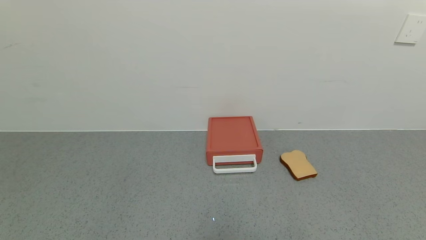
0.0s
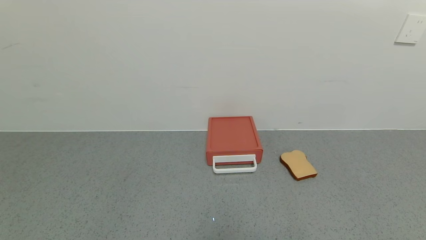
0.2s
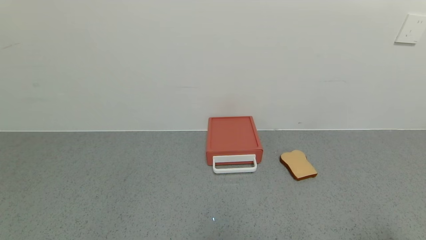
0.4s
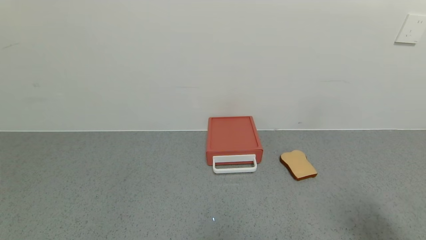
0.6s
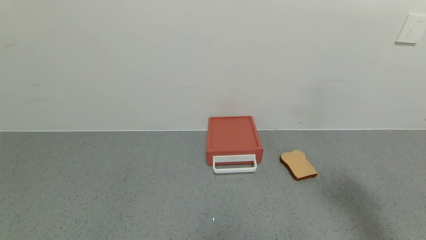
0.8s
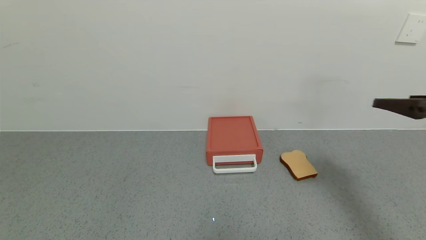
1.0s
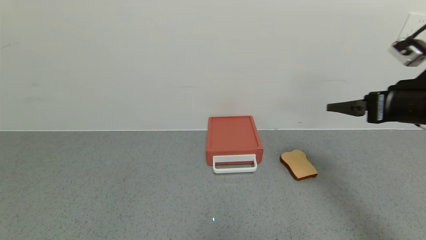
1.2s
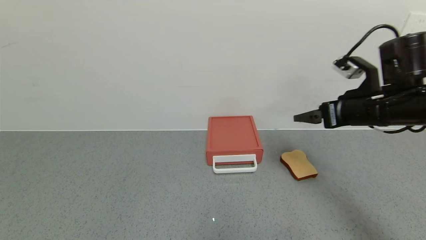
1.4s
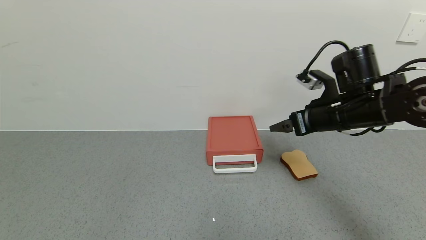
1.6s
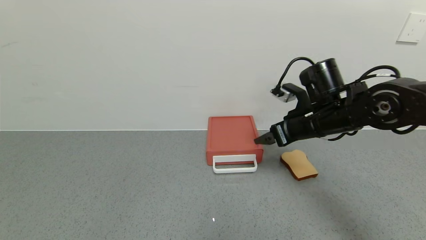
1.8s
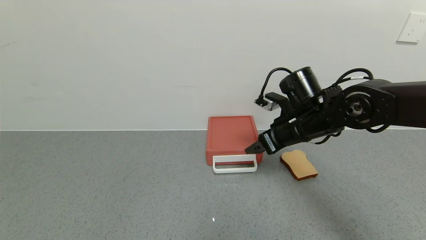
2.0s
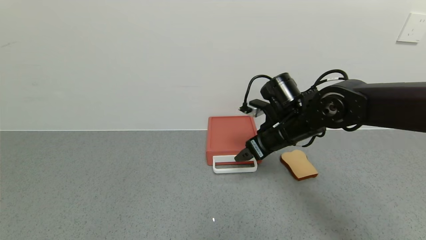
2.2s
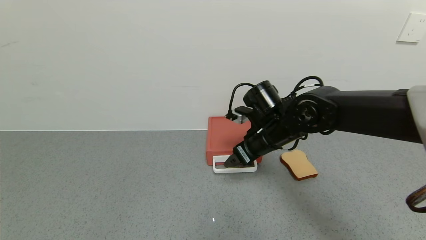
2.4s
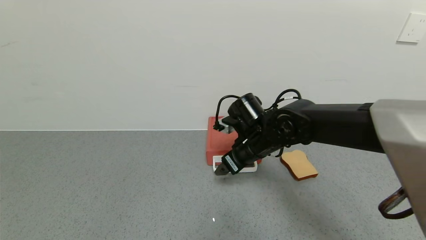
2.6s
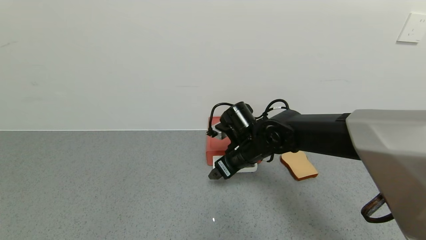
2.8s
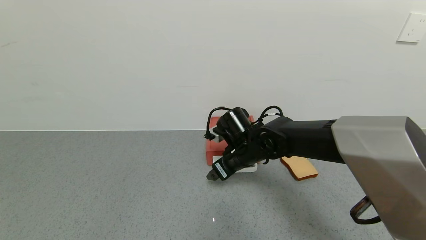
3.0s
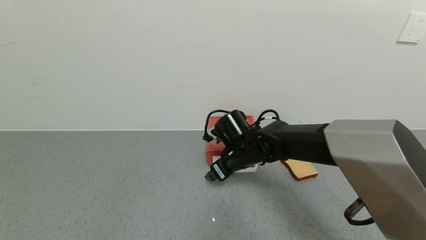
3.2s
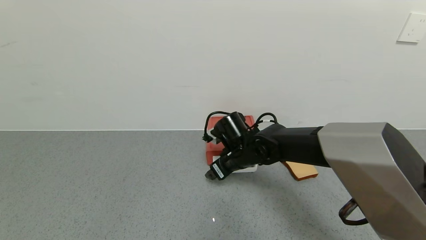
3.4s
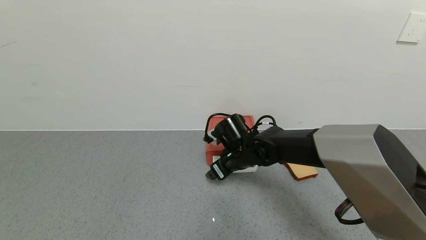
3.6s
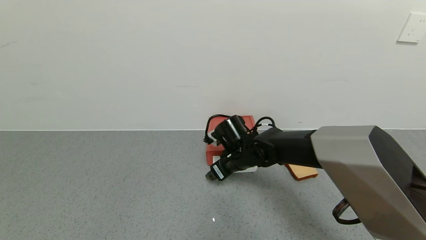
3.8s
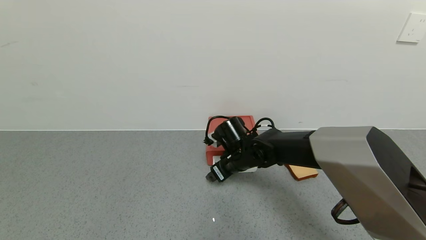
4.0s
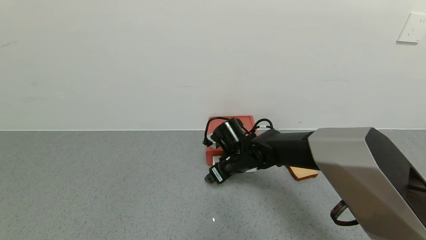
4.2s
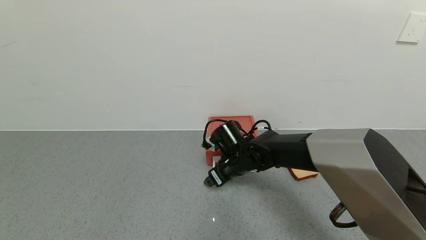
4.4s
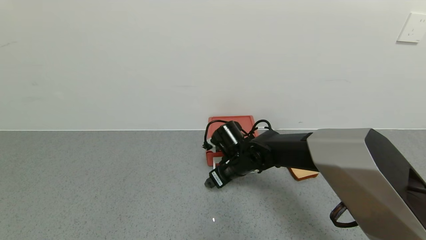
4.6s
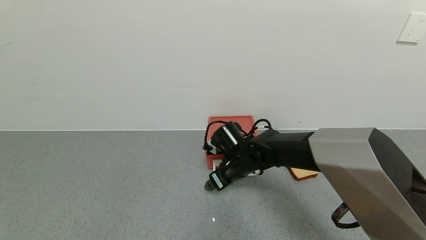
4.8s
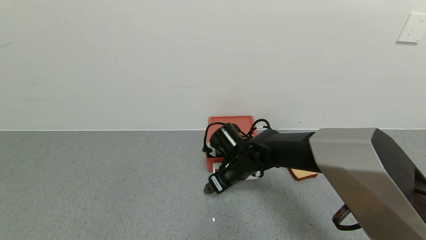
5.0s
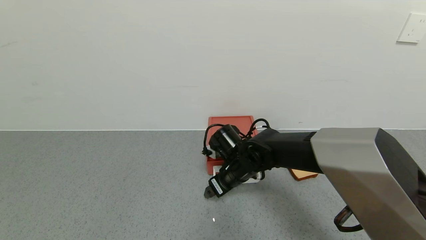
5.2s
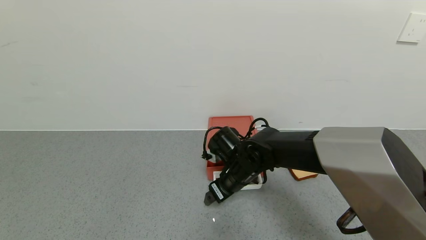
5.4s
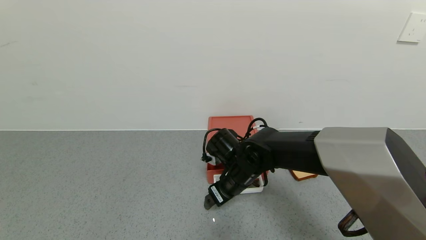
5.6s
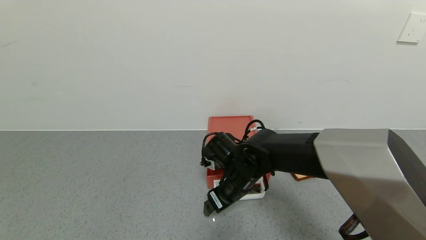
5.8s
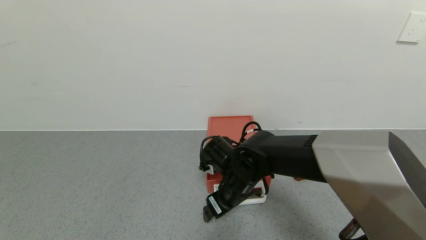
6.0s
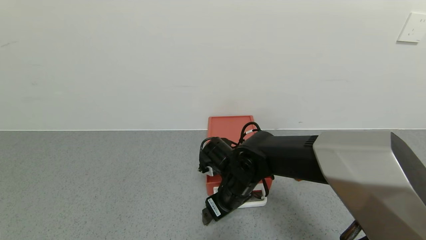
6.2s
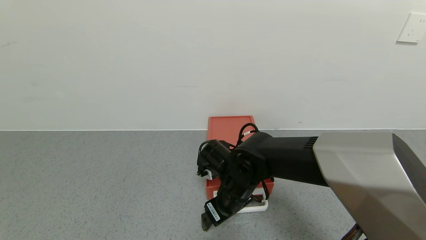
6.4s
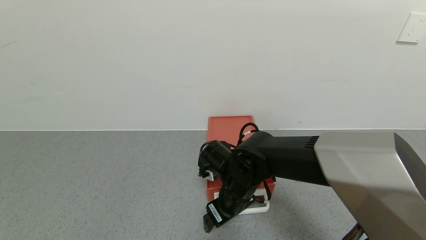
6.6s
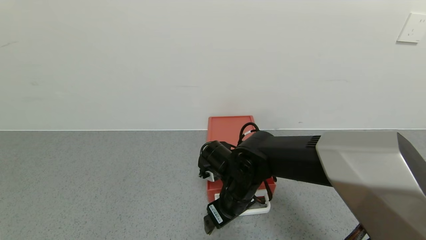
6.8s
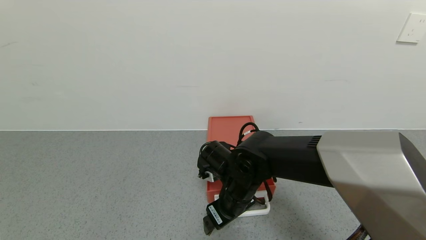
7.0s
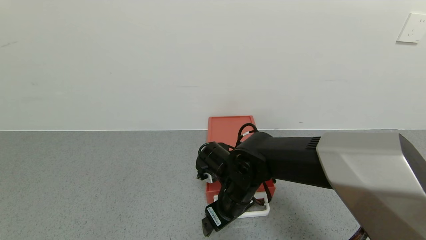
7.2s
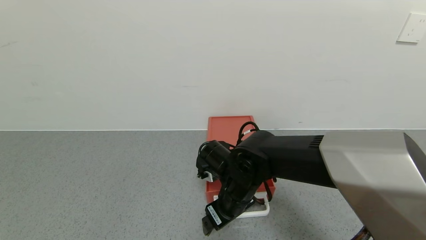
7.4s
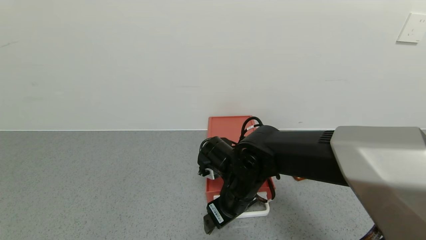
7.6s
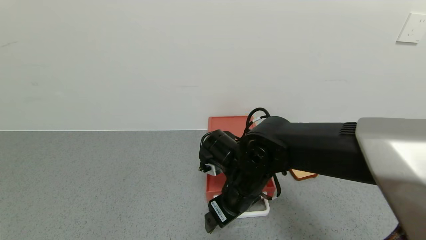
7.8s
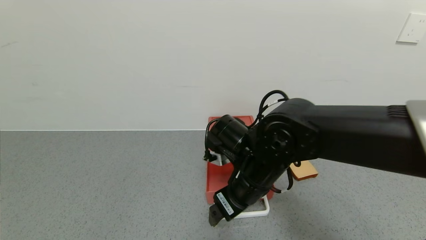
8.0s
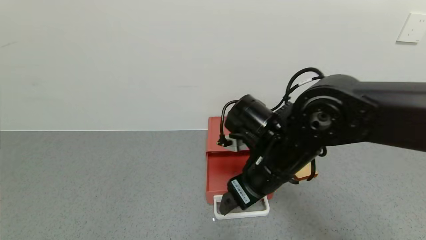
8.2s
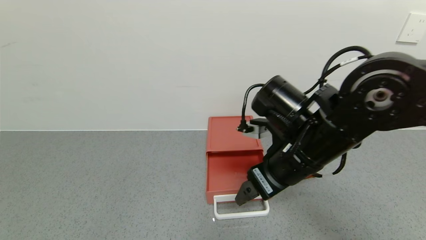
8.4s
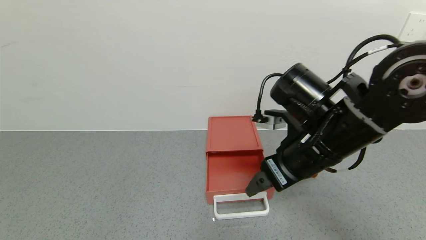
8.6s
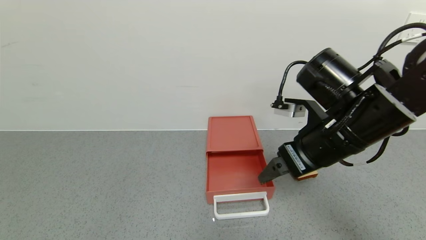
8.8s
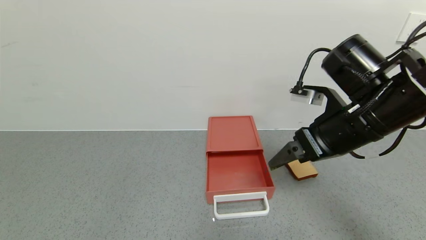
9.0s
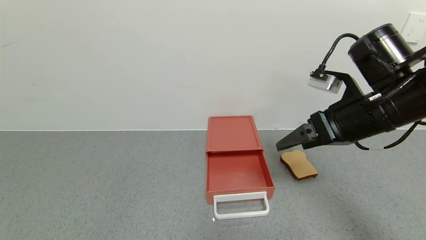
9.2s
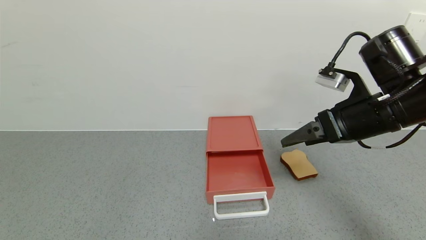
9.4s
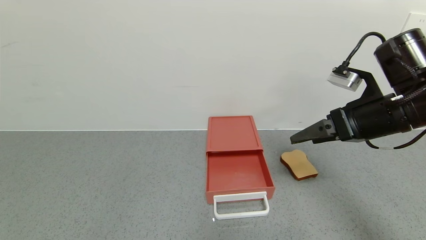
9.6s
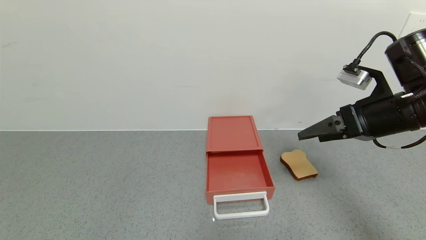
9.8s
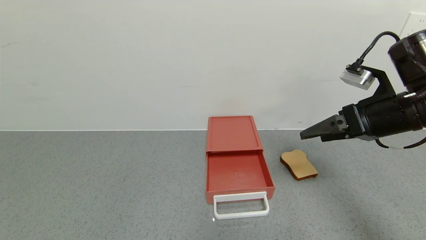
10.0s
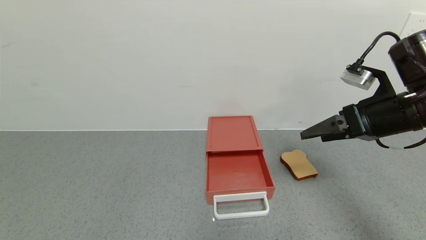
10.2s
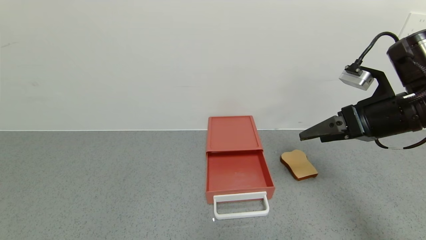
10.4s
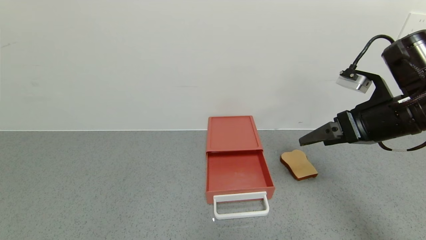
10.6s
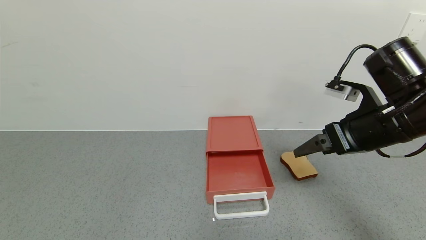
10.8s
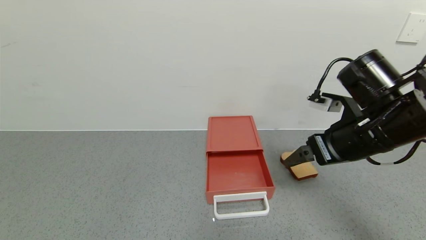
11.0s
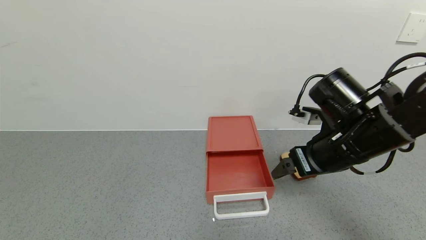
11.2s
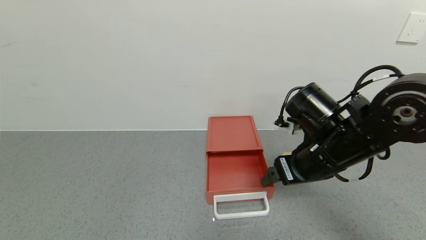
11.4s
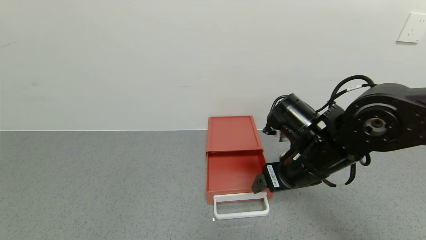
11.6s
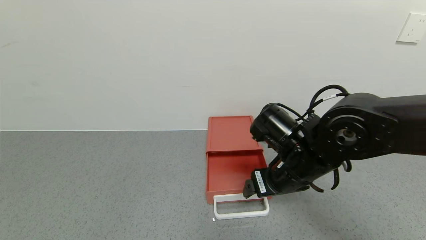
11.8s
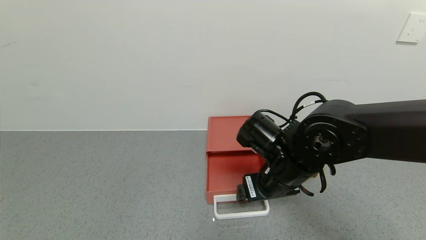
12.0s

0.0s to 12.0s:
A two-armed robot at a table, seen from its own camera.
Task of the whole recording: use the gripper to open the drawer and close the red drawer.
Step, 0.0s to 8.2s: Open the red drawer with the right gripper.
0.0s to 1.6s: The right gripper goes about 35 cm forward.
1.6s to 3.0s: The right gripper is displaced to the left and downward by roughly 20 cm.
3.0s to 4.4s: The grippers move only a little.
4.4s to 6.0s: The right gripper moves backward, some 5 cm.
6.0s to 7.6s: The grippers stay close to where they were, moving slightly.
7.6s to 9.0s: The right gripper is displaced to the right and upward by some 25 cm.
9.0s to 10.4s: The right gripper travels to the right by some 5 cm.
10.4s to 12.0s: The right gripper travels to the left and downward by some 20 cm.

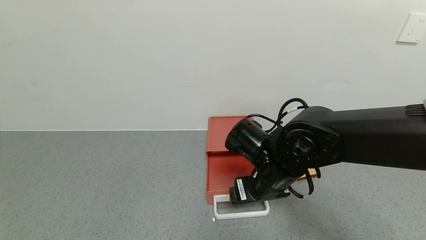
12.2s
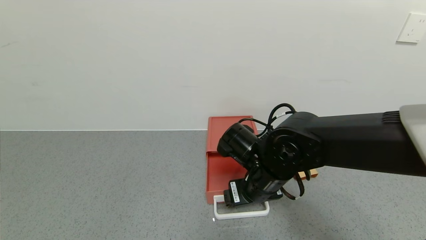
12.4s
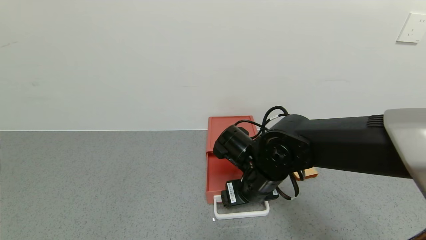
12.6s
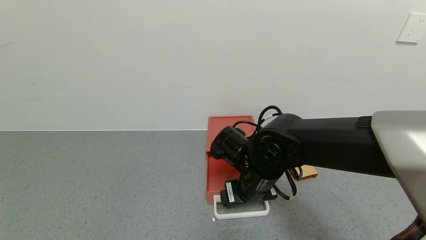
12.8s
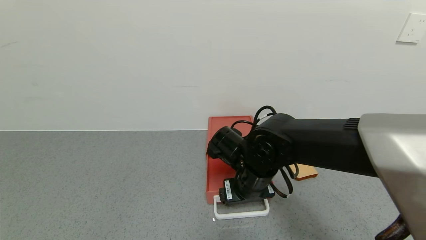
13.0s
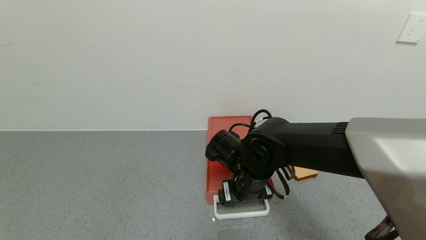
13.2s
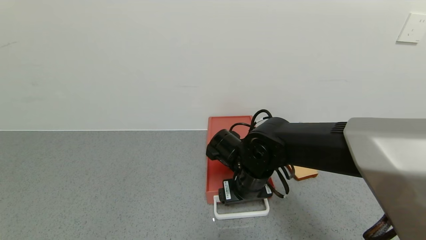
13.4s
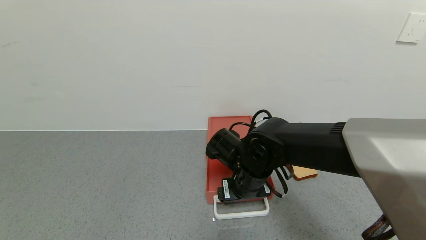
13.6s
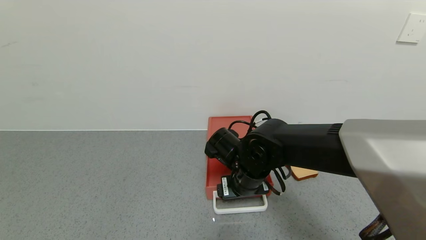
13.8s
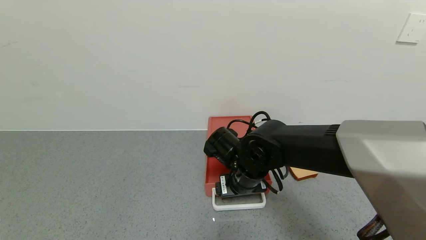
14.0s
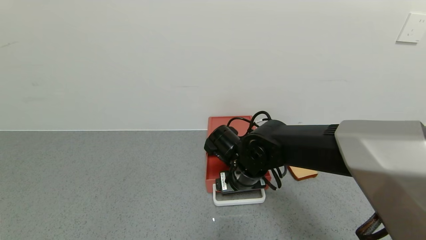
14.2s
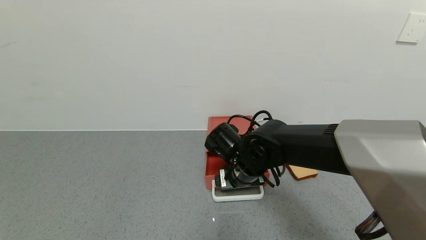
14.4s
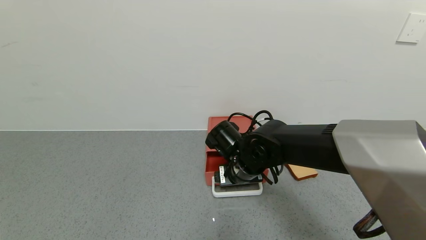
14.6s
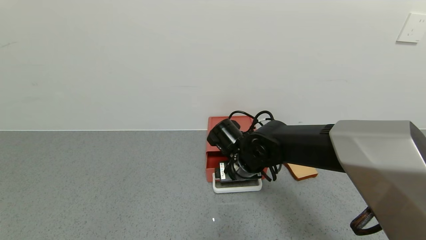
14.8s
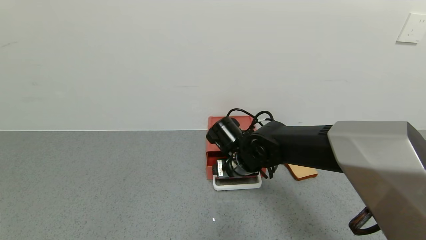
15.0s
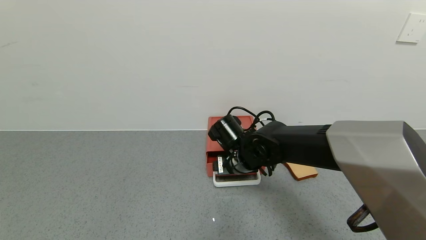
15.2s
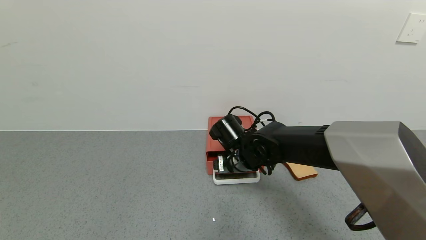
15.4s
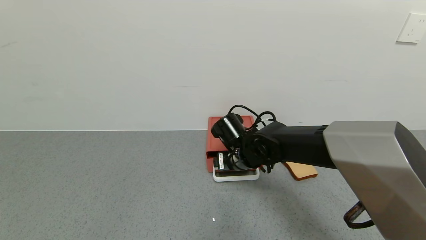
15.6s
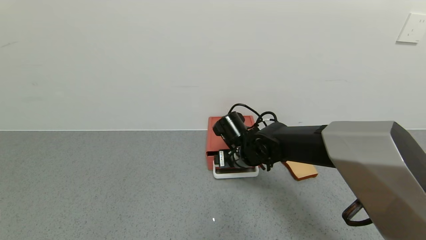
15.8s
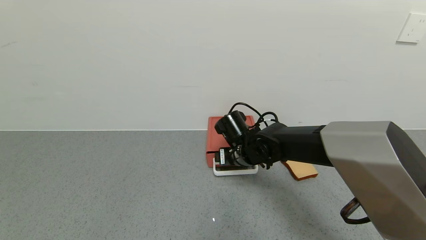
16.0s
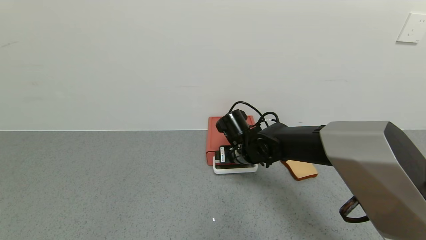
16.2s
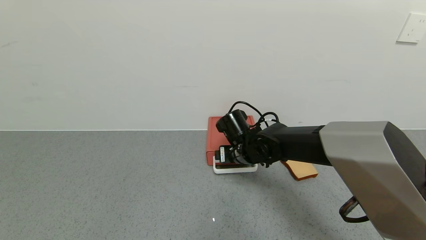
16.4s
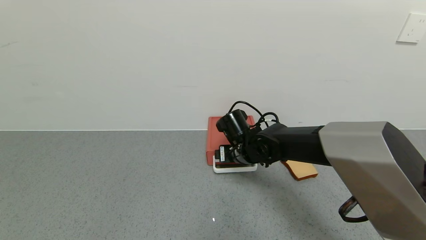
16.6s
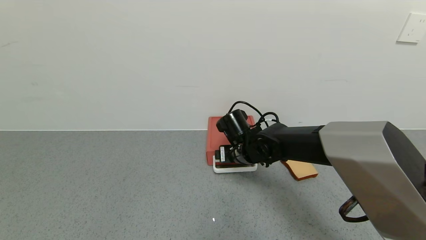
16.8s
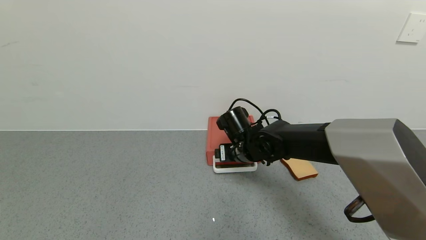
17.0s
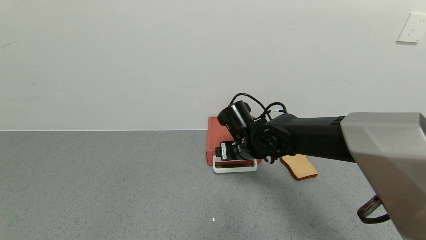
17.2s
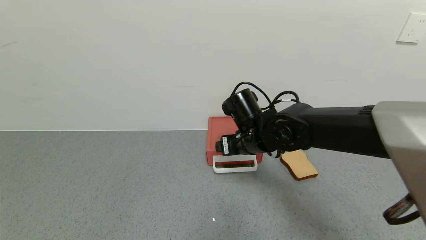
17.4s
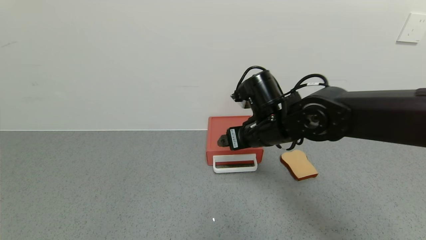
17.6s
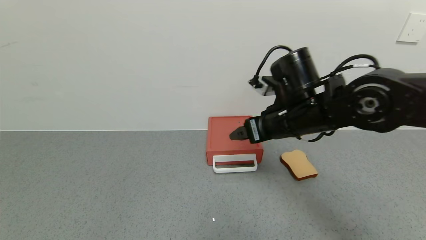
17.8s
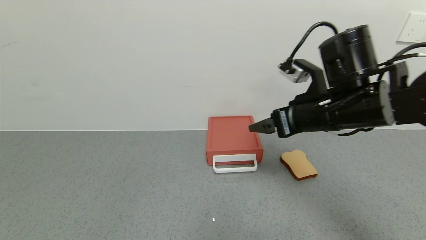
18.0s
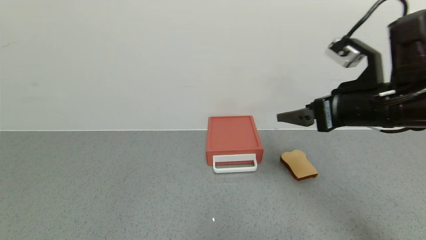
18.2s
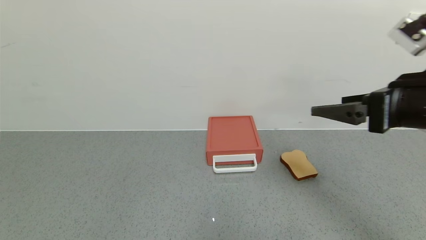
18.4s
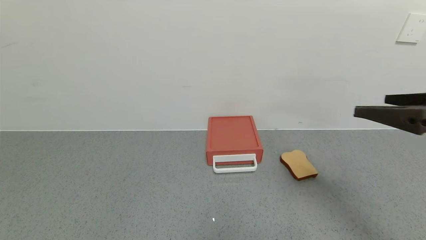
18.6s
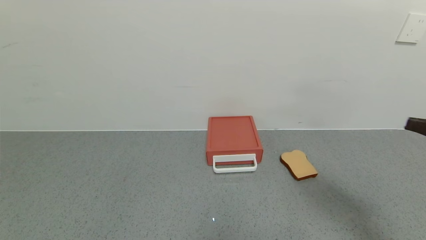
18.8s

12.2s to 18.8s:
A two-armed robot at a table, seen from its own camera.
Task of the whole recording: use the gripper to open the drawer and close the red drawer.
Step, 12.2s to 17.4s: Close the red drawer with the right gripper.
12.2s to 13.8s: The right gripper ends up roughly 5 cm from where it was.
13.8s to 15.4s: The right gripper shifts approximately 5 cm forward.
15.4s to 17.2s: There are only small adjustments of the grippers.
17.2s to 18.8s: The right gripper shifts about 40 cm to the right, backward and upward.
